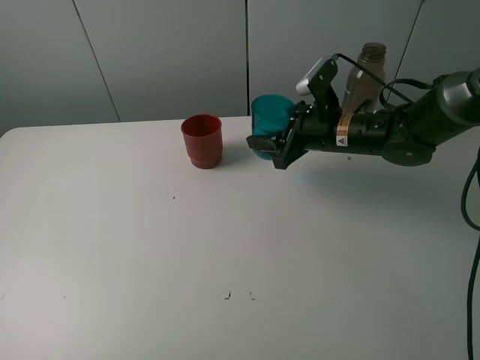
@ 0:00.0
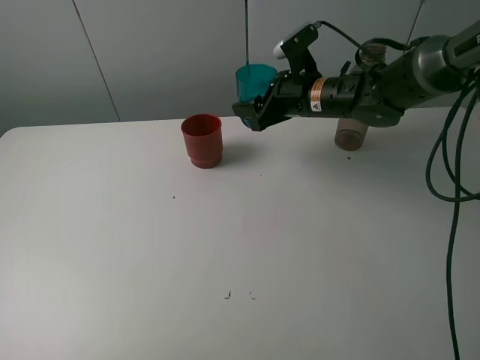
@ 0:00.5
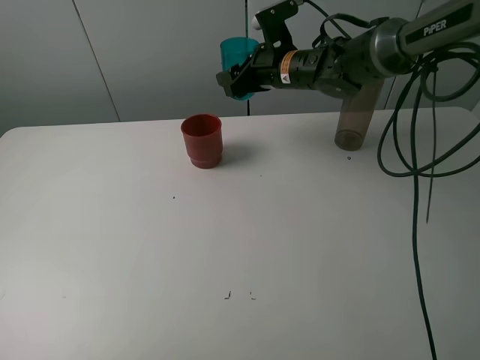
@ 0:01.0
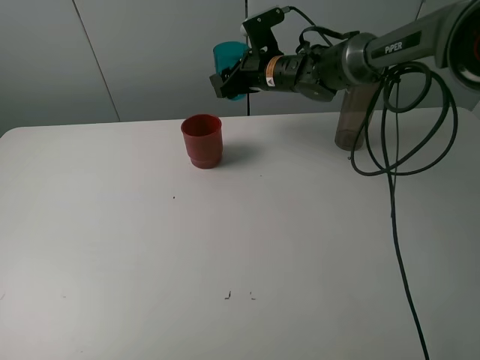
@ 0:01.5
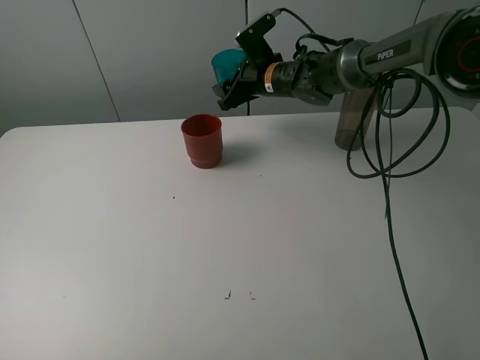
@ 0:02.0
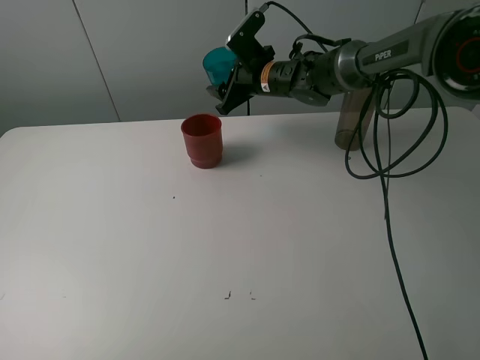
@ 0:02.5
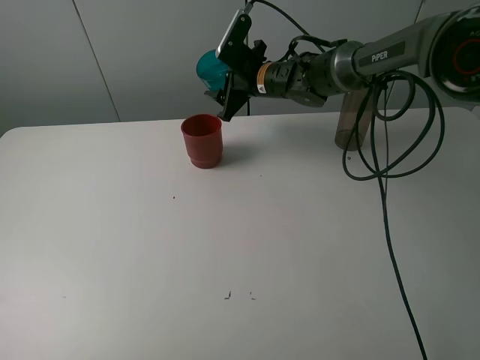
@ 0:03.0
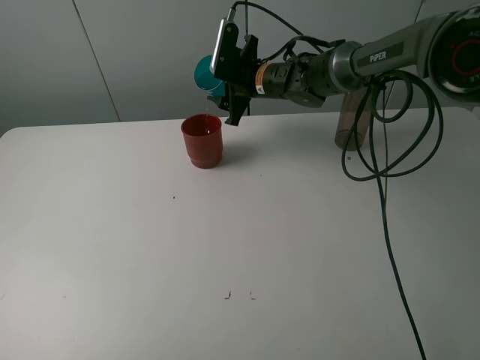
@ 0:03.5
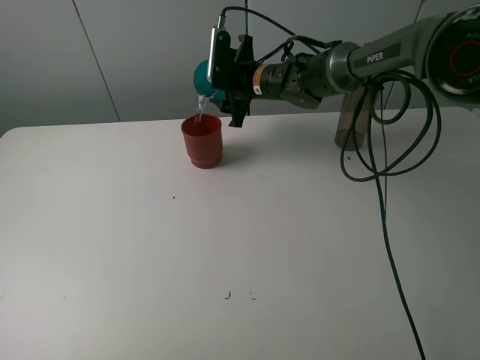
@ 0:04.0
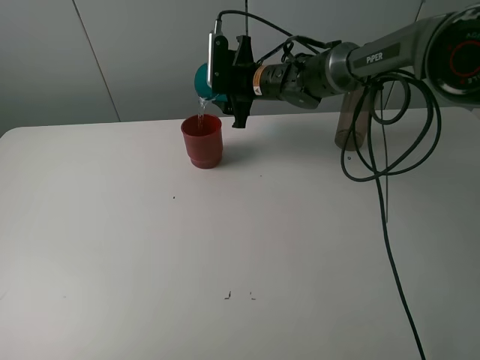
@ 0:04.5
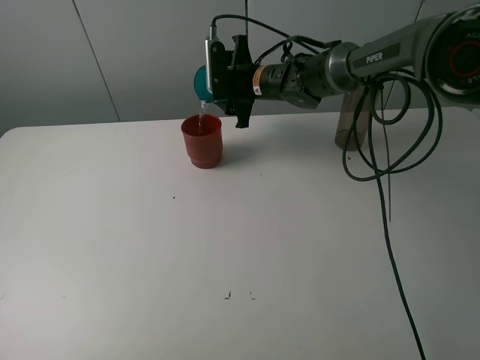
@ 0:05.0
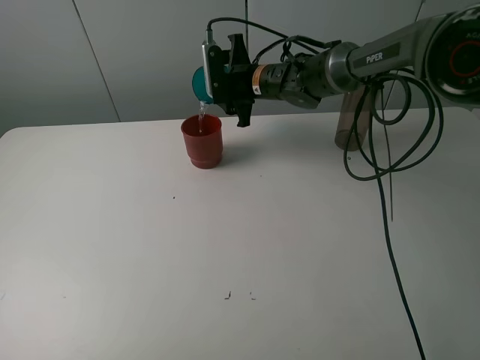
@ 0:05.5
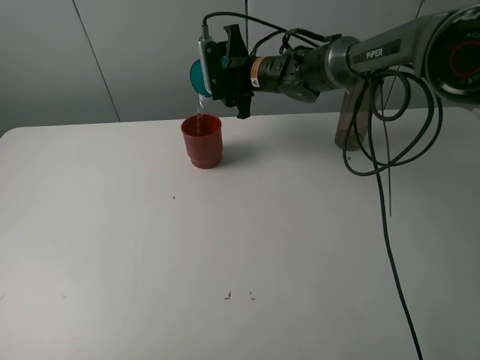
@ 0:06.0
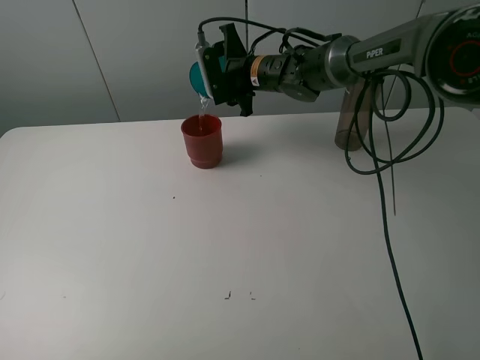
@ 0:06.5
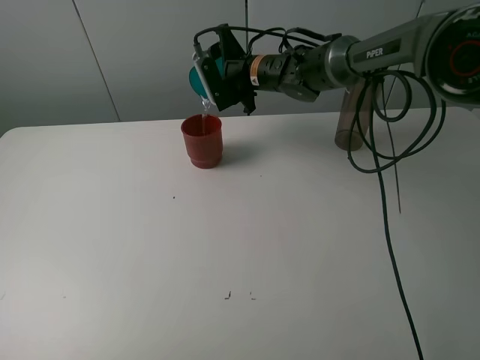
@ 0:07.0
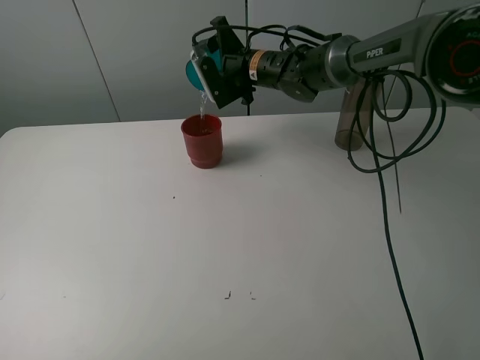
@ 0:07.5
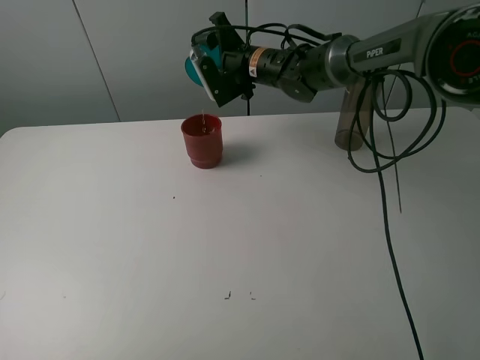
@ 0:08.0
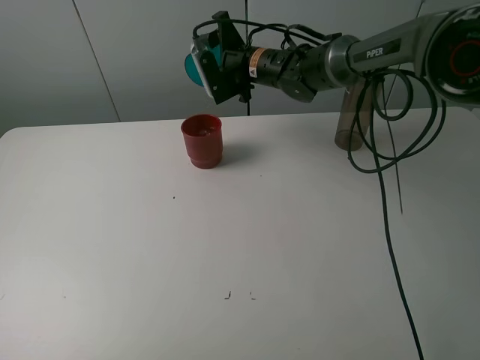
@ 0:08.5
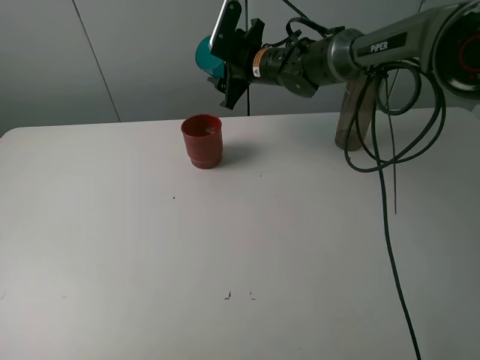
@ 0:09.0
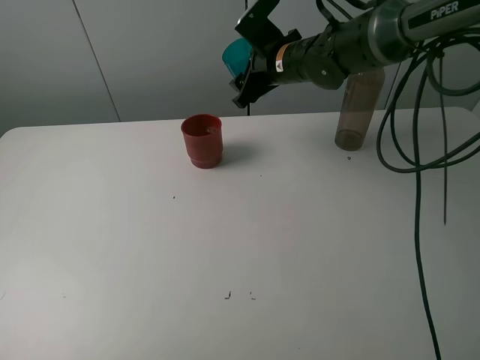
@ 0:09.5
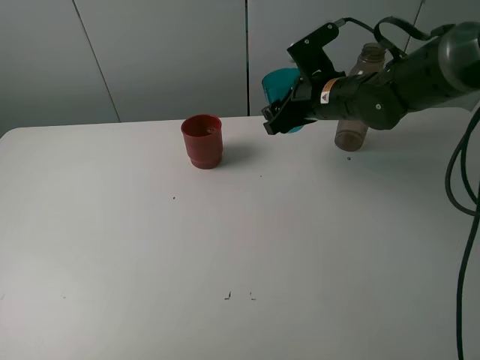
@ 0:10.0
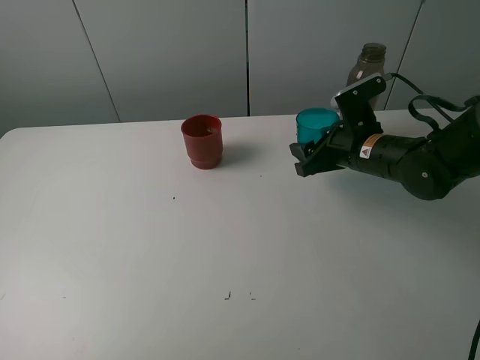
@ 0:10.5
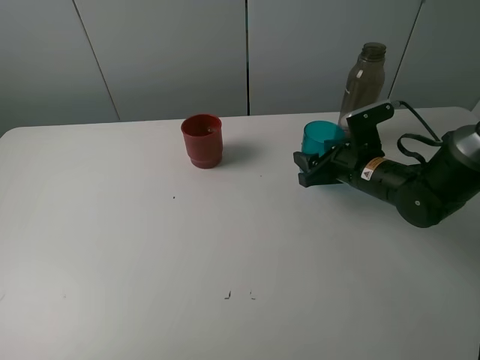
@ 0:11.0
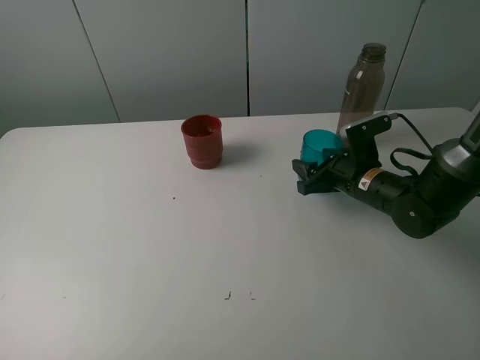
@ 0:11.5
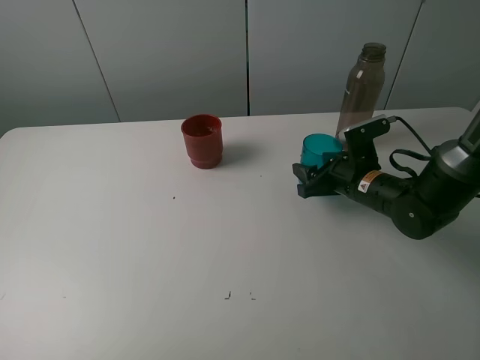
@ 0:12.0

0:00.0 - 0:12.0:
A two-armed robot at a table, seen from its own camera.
Task of the whole recording: pick up the bottle and pour water into the cup, then pick up the cup containing water and pour it into another cup.
Step, 0:00.0 - 0:08.5: Pour water from blue cup to red cup with the right gripper.
0:00.0 - 0:02.0: The right gripper moves forward and to the left, some 15 cm.
0:08.0 - 0:10.0: The right gripper goes some 15 cm backward and to the right.
0:10.0 - 0:12.0: The right gripper goes roughly 15 cm downward, to the right and backward.

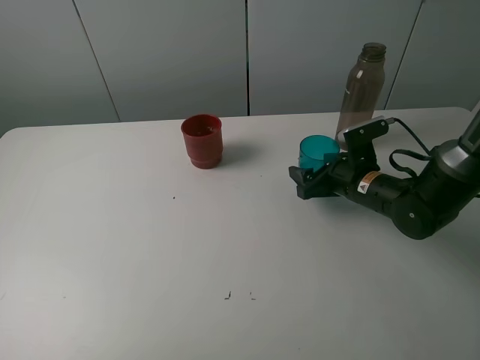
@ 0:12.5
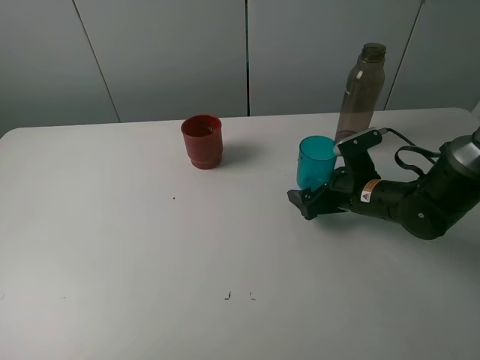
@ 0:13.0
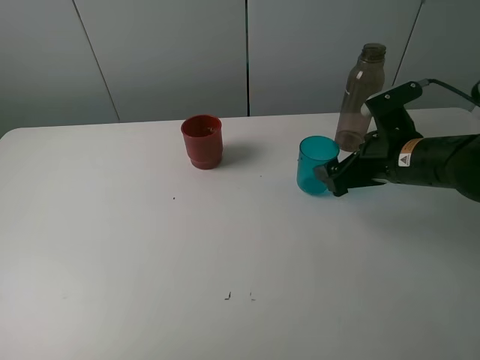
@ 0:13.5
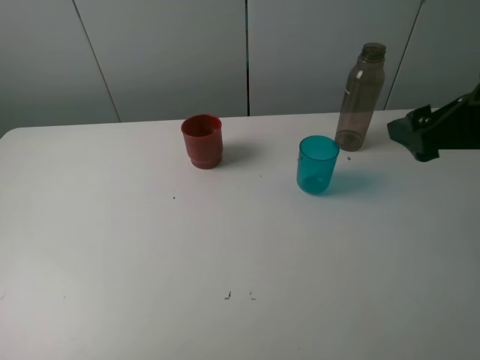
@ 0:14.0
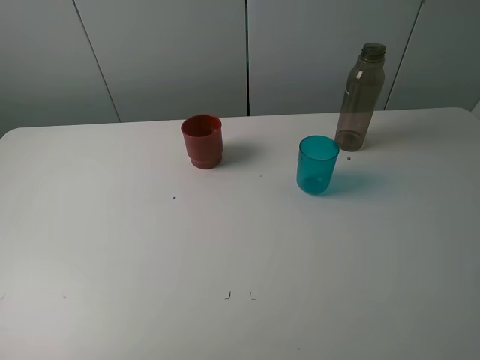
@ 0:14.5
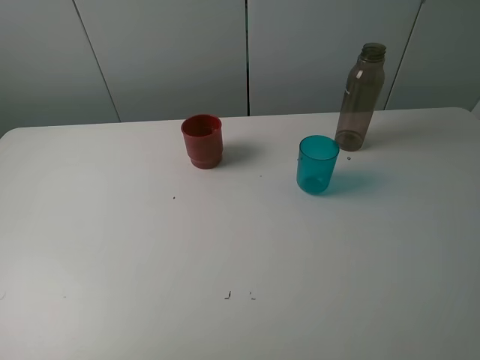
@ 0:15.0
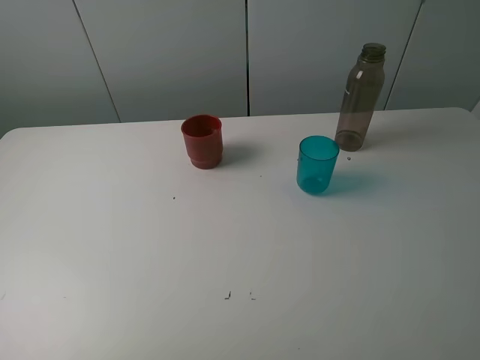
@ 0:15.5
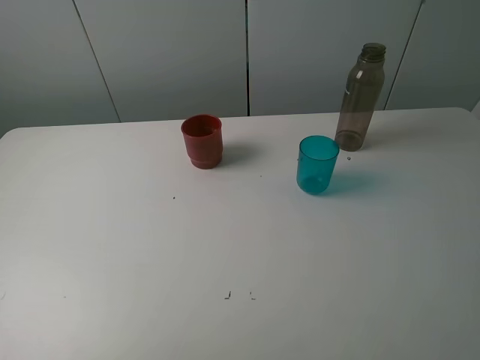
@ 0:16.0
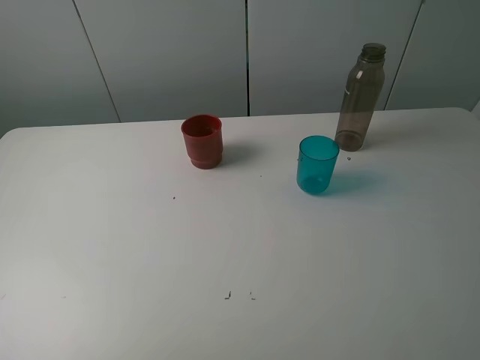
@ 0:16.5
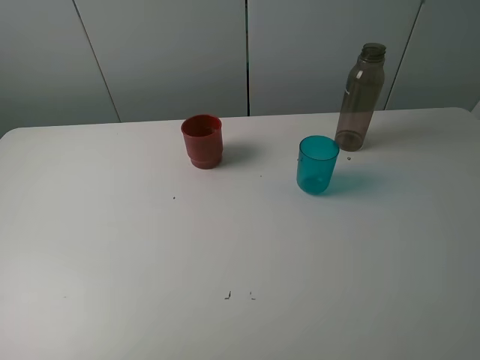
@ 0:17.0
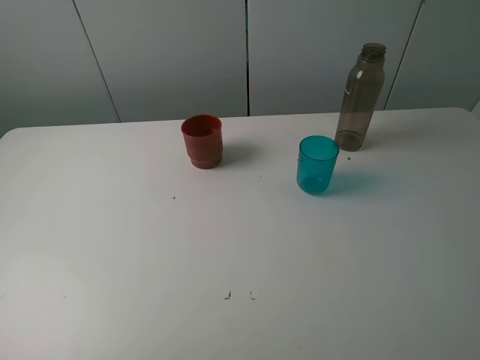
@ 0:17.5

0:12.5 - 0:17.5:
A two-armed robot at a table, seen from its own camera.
Task of the whole recording: pick up the bottle and pour water into the cup, then pick up the cup containing water and pour it into another cup.
0:12.5 - 0:15.0: The right gripper goes roughly 40 cm backward and upward.
